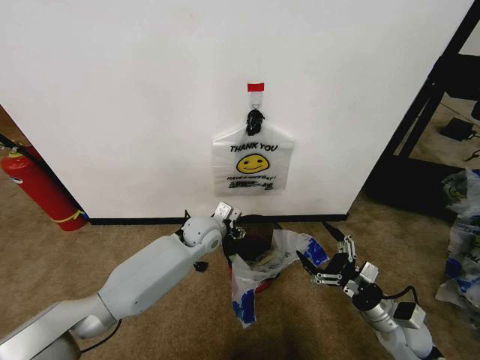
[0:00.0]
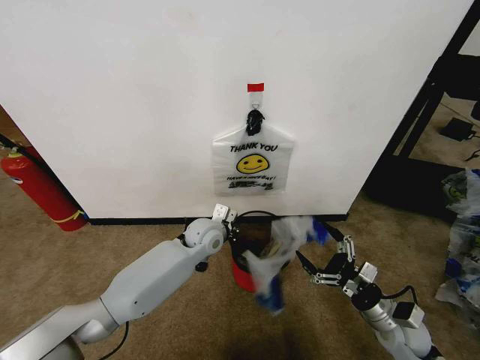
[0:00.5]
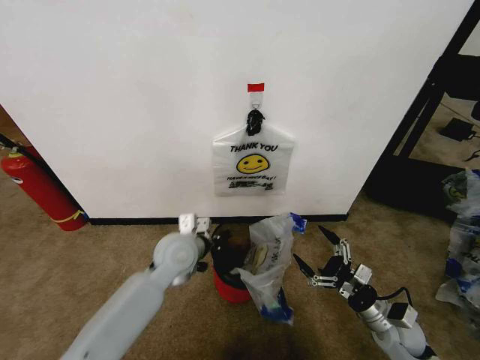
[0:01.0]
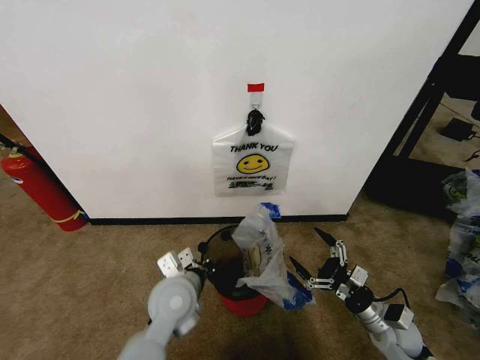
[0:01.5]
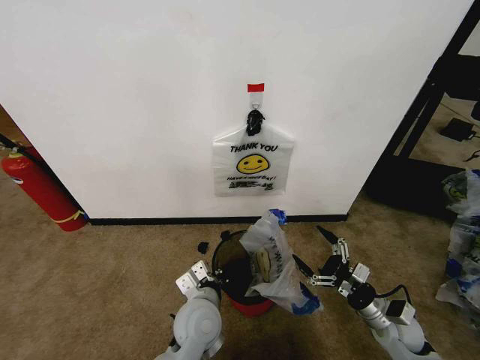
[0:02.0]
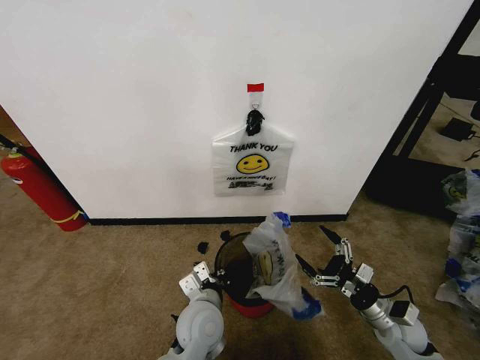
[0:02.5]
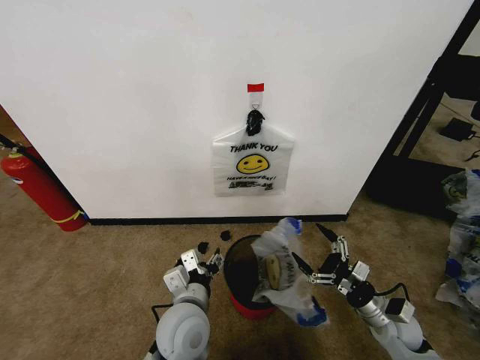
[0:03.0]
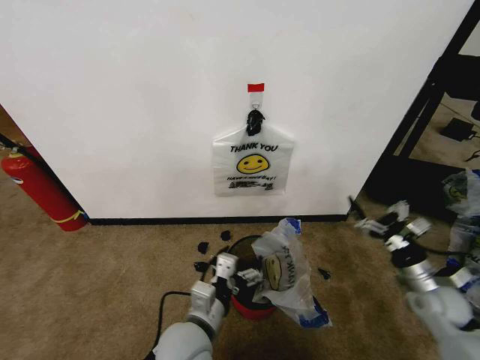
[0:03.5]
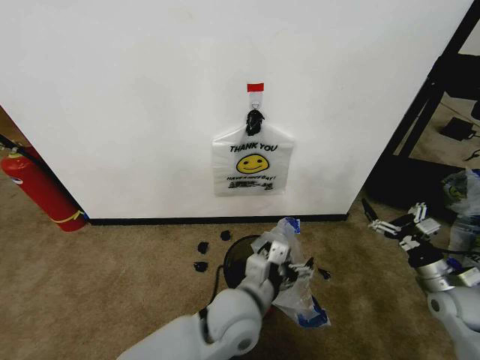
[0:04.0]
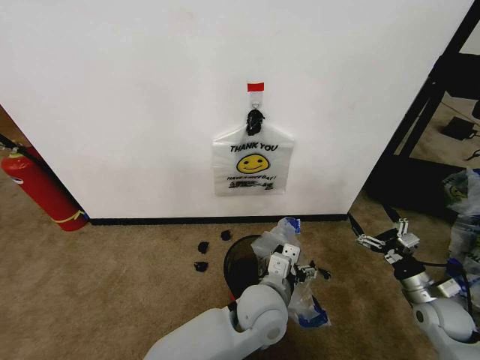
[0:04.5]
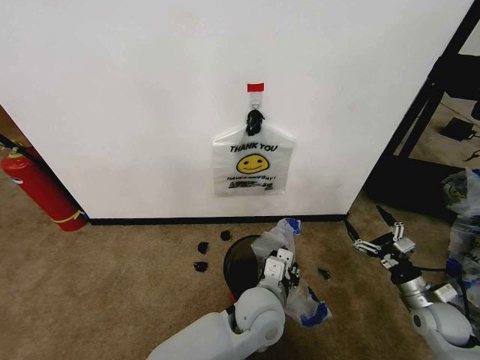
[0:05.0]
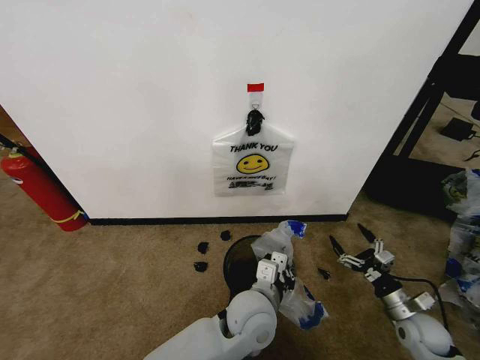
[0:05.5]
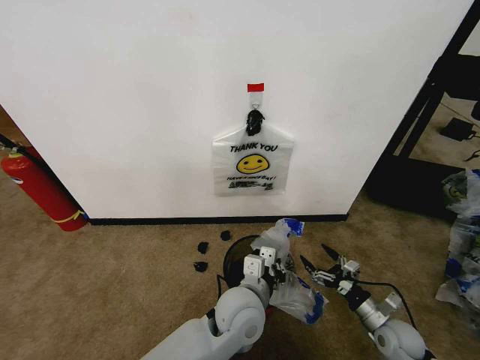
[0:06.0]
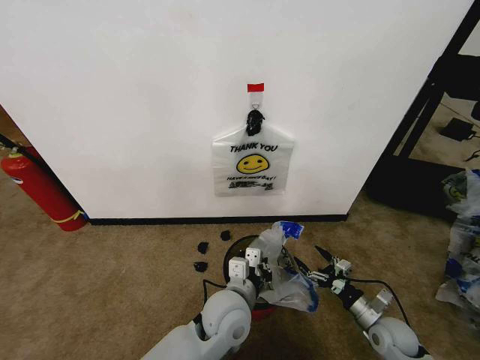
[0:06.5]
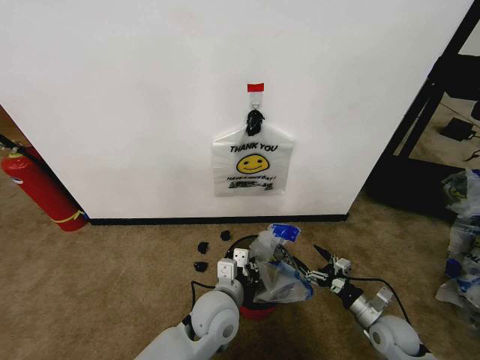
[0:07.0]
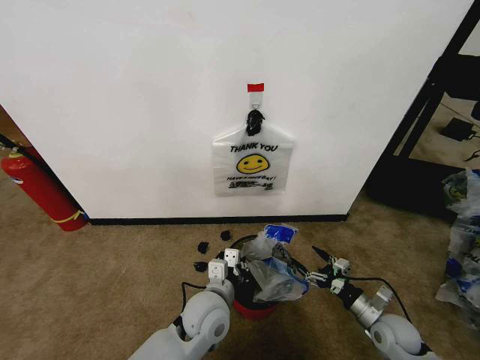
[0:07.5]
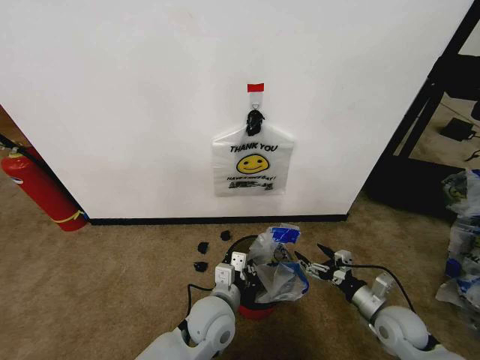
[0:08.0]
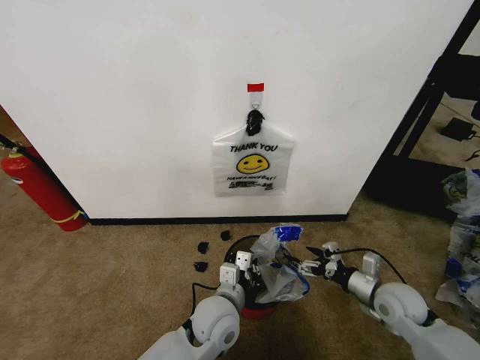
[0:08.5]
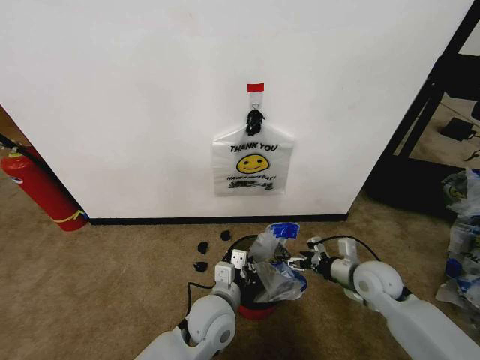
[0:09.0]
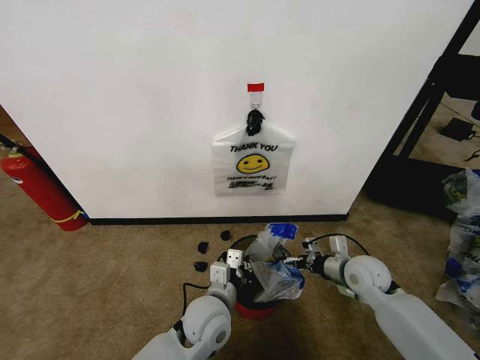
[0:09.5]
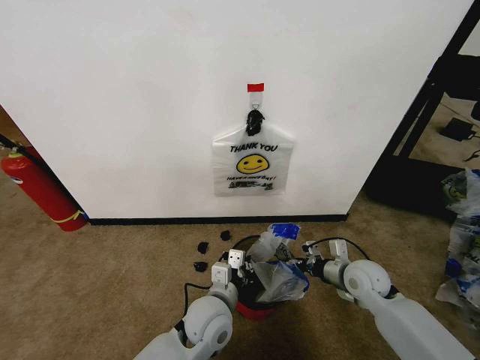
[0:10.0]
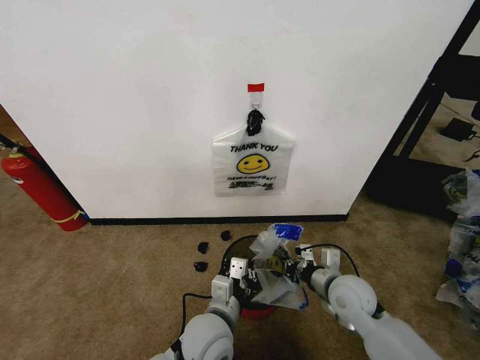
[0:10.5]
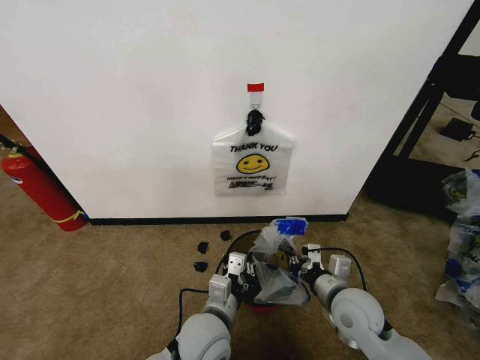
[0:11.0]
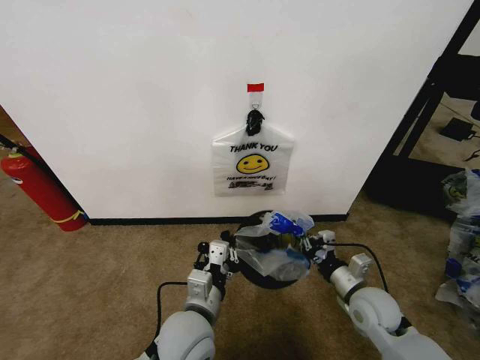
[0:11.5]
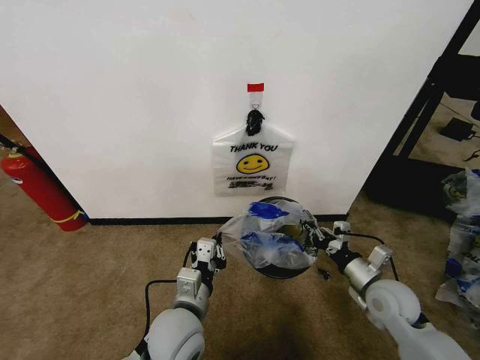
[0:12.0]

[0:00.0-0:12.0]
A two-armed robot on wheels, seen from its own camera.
Task of the whole recording: Pick up the garbage bag from the wall and place it over the trash bin.
0:00.0 to 0:02.0: The left gripper moves backward, about 20 cm, and closes.
0:02.0 to 0:04.0: Both grippers travel together to the right and upward, about 10 cm. The left gripper opens its fingers.
0:04.0 to 0:06.0: The right gripper shifts roughly 15 cm downward and to the left. Meanwhile the left gripper closes up.
0:06.0 to 0:08.0: The right gripper is displaced upward by roughly 5 cm; the left gripper shifts approximately 5 cm to the left.
0:08.0 to 0:10.0: The right gripper travels forward, to the left and upward by roughly 15 cm, and closes.
0:10.0 to 0:12.0: The right gripper is displaced backward by approximately 5 cm, reaches roughly 5 cm to the left, then returns, and closes its fingers. Meanwhile the left gripper heads to the left, covering some 5 cm.

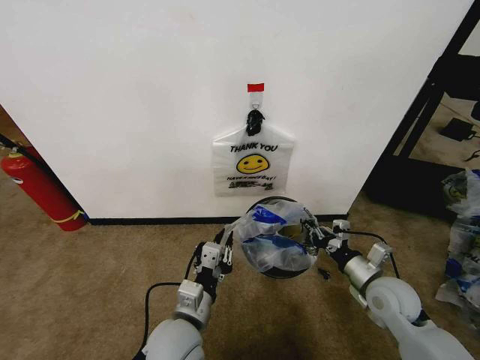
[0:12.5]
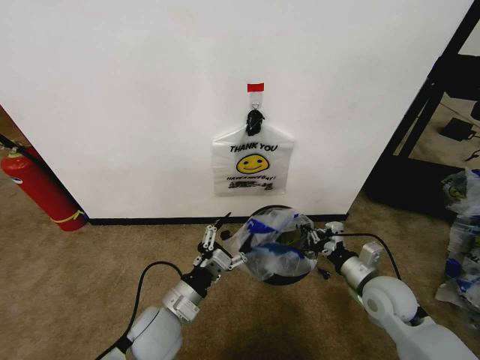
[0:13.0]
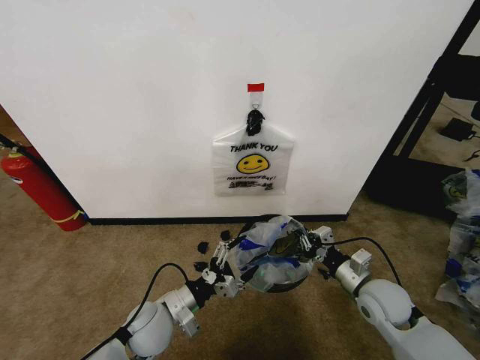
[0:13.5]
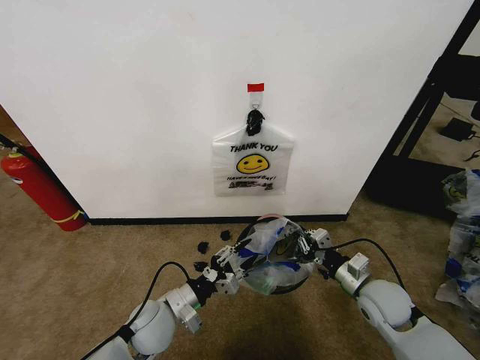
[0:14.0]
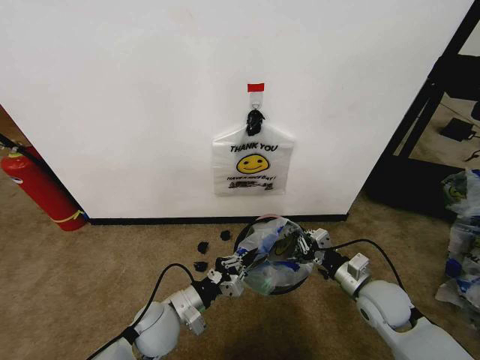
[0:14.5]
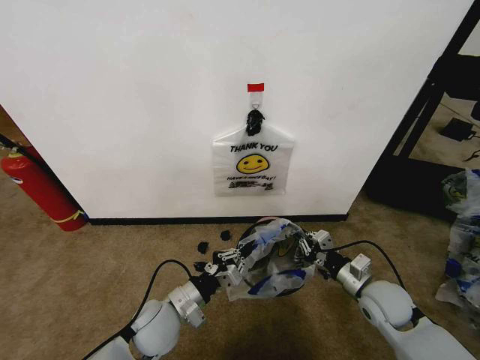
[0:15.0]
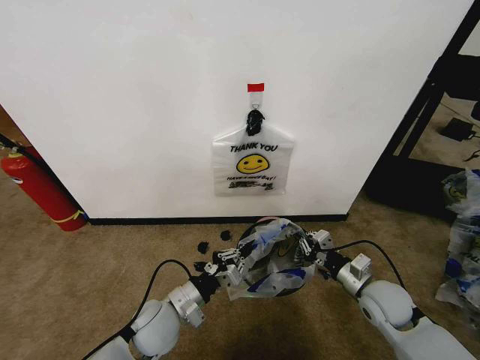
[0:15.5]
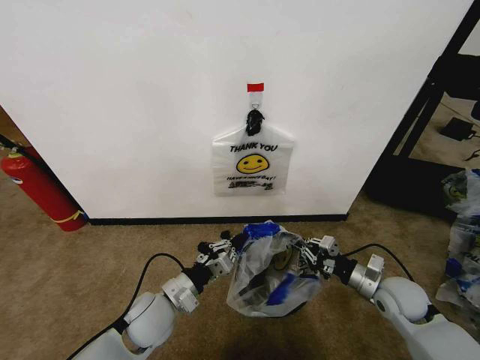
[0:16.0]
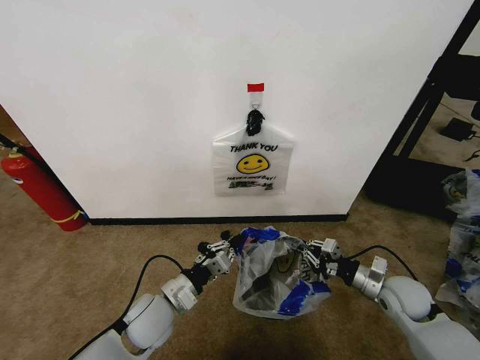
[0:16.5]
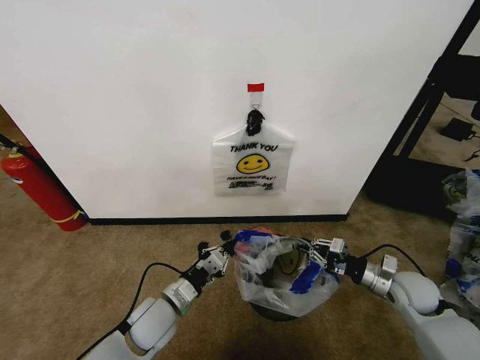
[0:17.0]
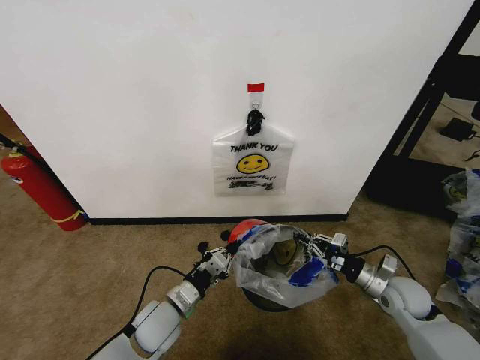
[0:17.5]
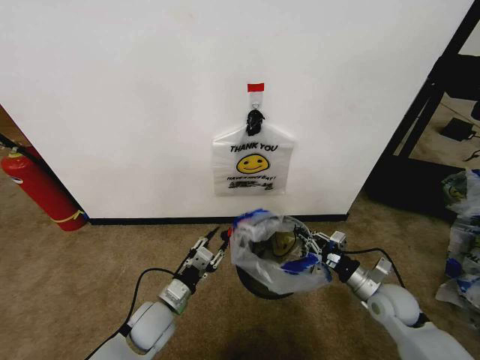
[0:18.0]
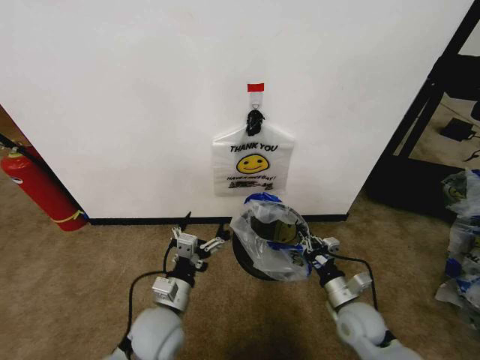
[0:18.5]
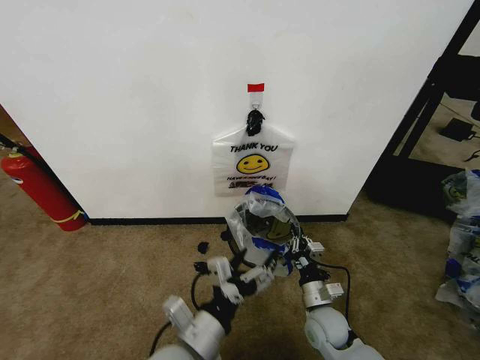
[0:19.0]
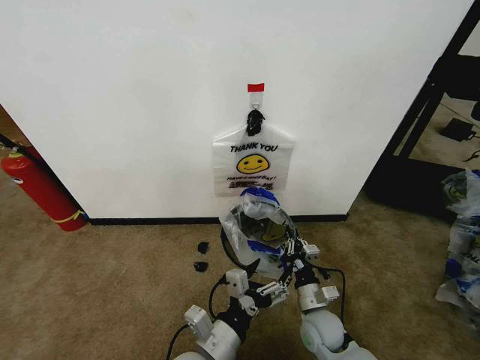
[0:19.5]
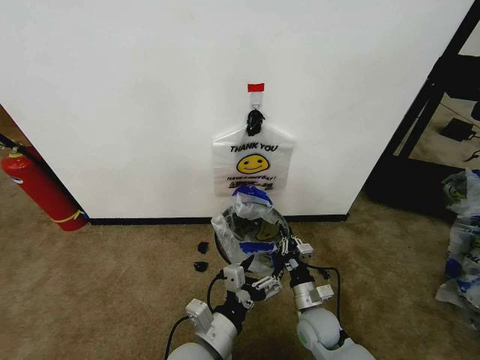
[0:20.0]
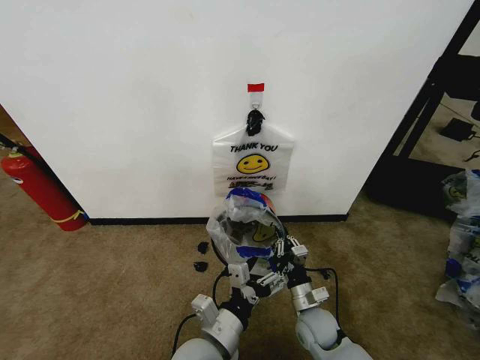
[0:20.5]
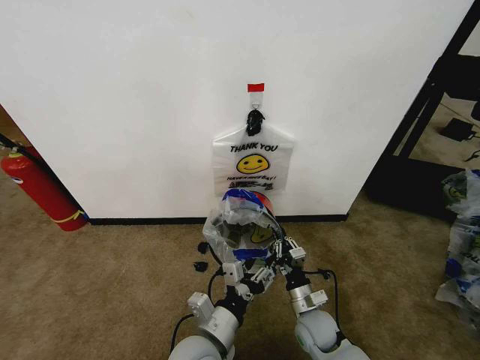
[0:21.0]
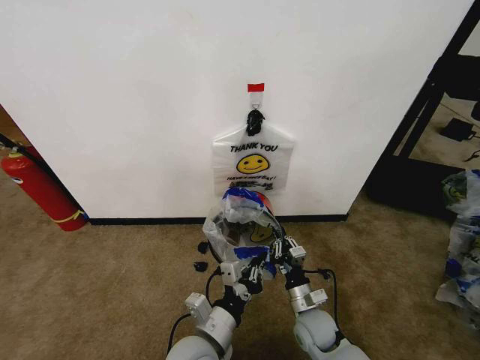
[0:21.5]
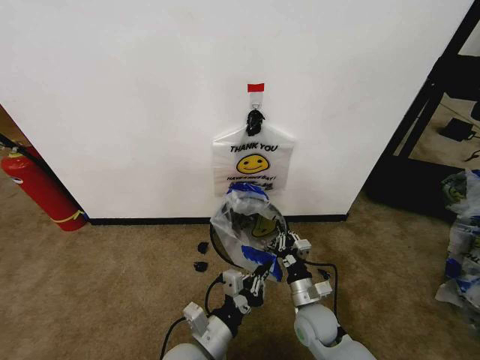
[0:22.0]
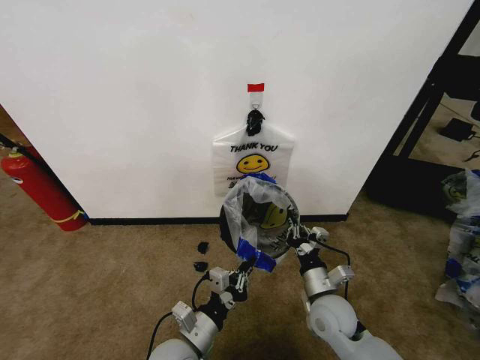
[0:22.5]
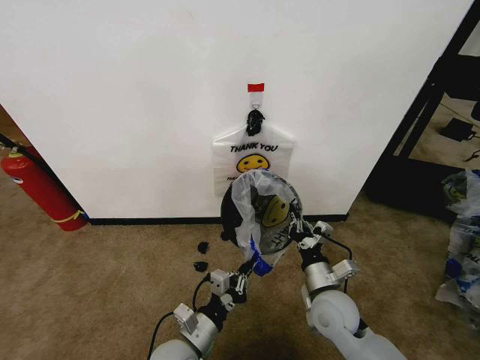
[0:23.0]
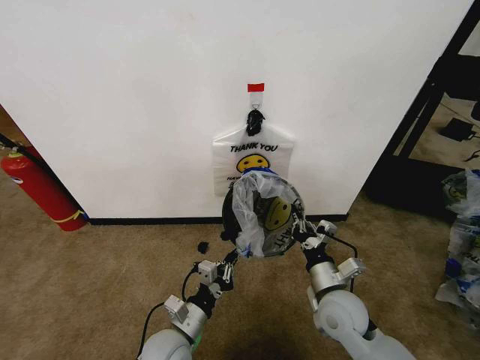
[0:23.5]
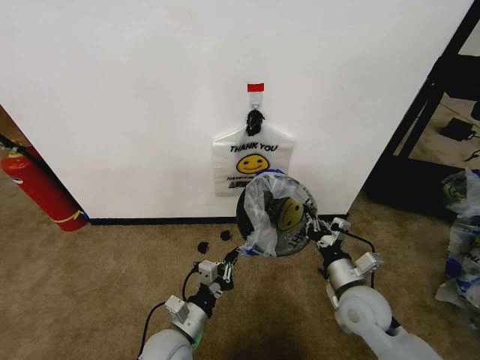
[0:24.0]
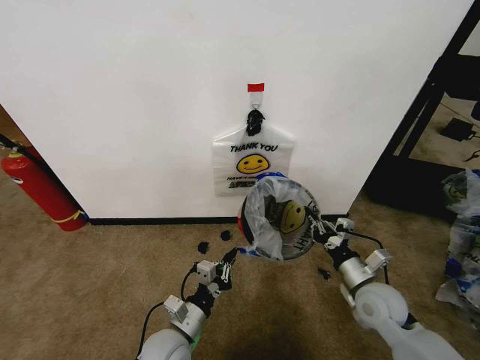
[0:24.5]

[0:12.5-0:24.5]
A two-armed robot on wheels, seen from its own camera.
Task of the whole recording: Pick up the garbage bag from the wall and place it over the trash bin.
0:12.5 to 0:14.5: The left gripper travels downward, to the left and forward by some 10 cm, and opens, then closes again.
0:14.5 to 0:16.5: The right gripper goes about 5 cm to the right.
0:16.5 to 0:18.5: The right gripper travels to the left by some 10 cm. Meanwhile the left gripper opens.
0:18.5 to 0:20.5: The right gripper goes about 10 cm to the left and downward; the left gripper travels to the right and backward by about 10 cm.
0:20.5 to 0:22.5: The left gripper is displaced to the left and downward by about 10 cm, and closes, while the right gripper shifts approximately 10 cm upward.
0:22.5 to 0:24.5: The right gripper goes roughly 10 cm to the right.

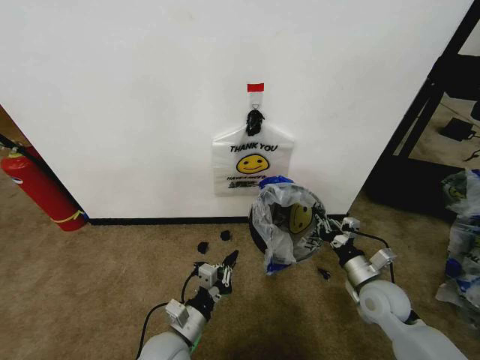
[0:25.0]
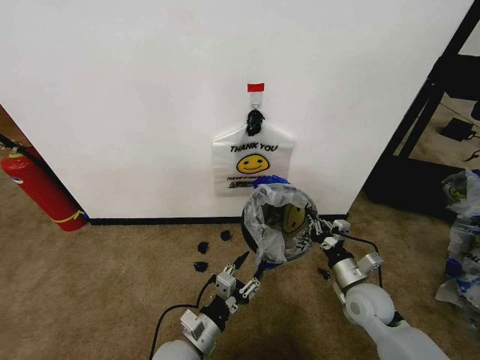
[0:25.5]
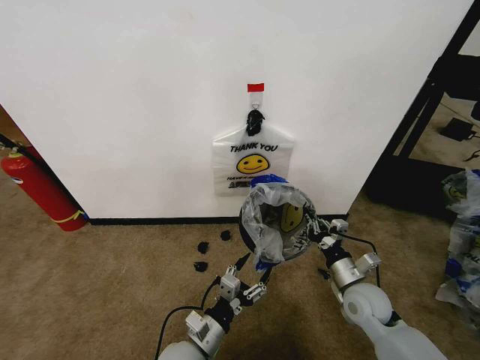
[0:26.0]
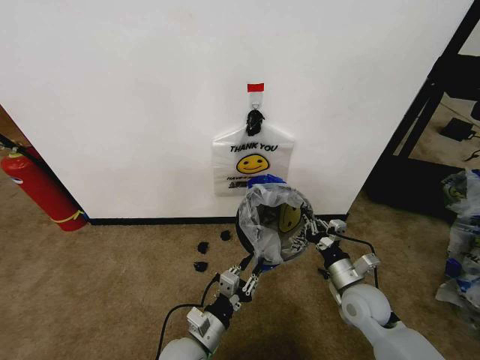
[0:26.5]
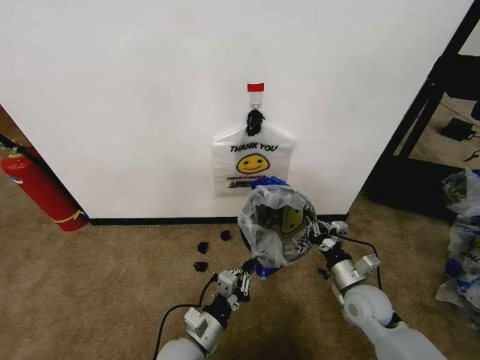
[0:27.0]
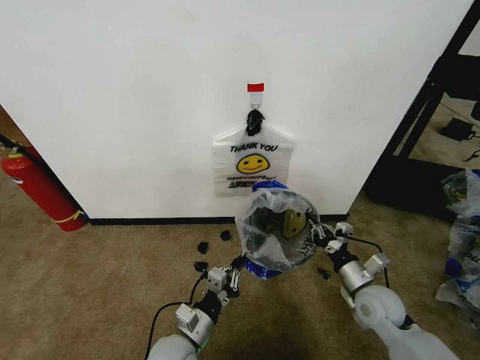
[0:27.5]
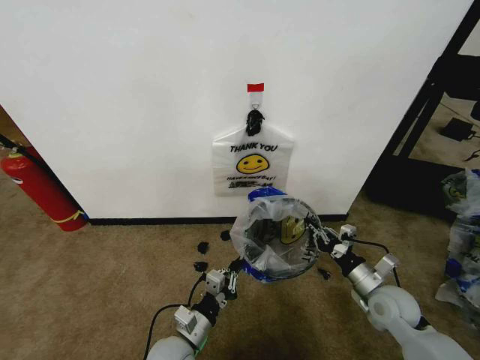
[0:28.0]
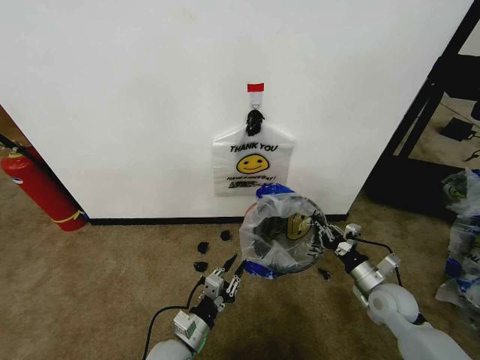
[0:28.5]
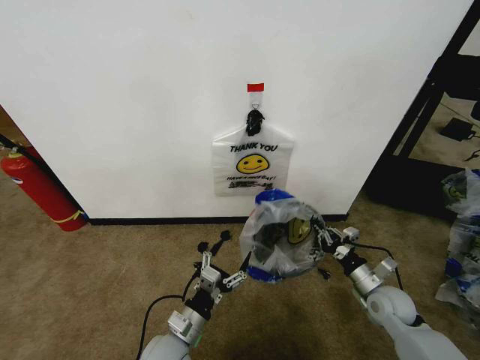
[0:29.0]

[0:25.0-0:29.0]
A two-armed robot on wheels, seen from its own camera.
Task of the whole recording: Pick up the garbage bag from the wall and place it over the trash bin.
0:25.0 to 0:27.0: The left gripper opens, then closes again.
0:27.0 to 0:29.0: The left gripper opens its fingers; the right gripper heads to the right, covering some 5 cm.
